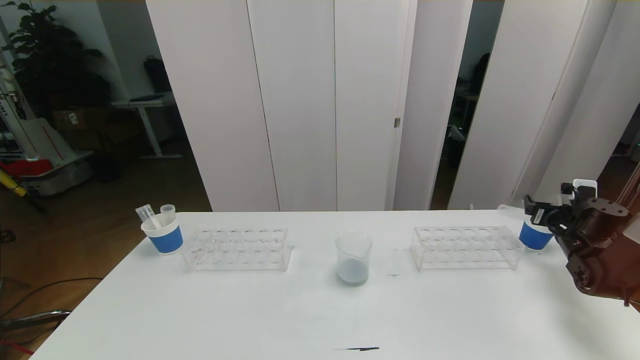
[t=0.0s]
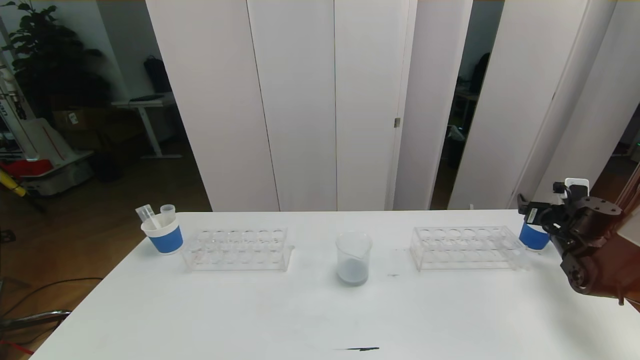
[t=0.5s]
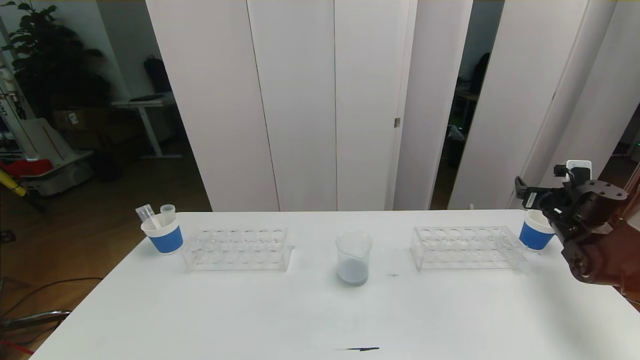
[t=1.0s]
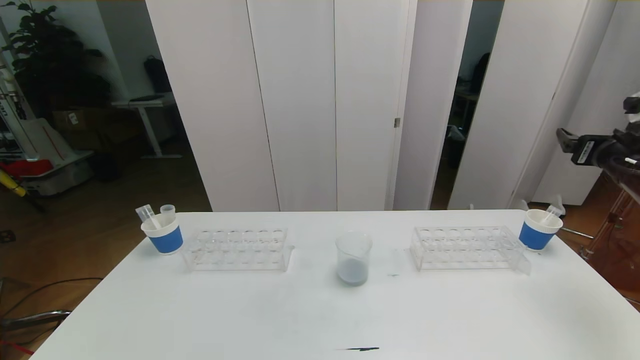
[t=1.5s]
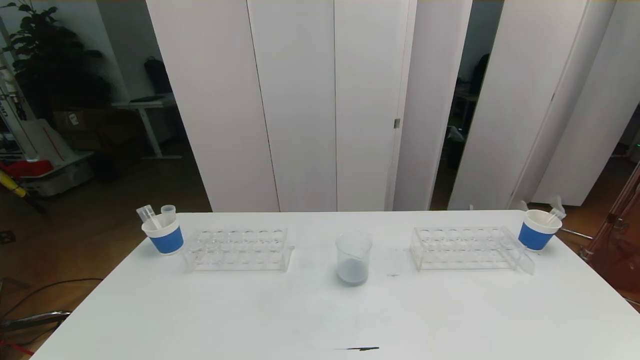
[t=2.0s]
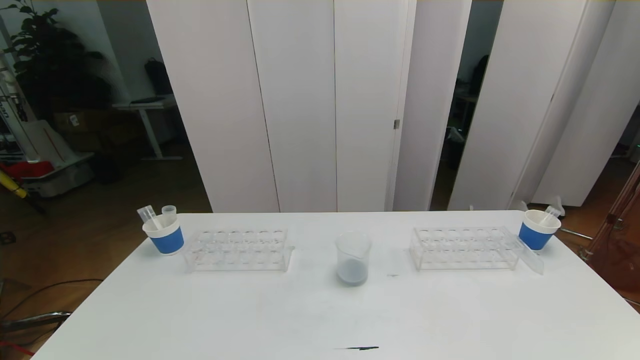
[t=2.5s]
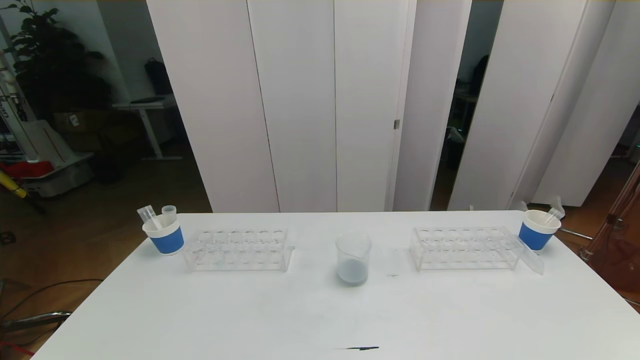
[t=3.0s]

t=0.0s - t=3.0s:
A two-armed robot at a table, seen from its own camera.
Task of the whole recording: pick up the test tube with red pigment the test tube with blue pigment and the test tube with white pigment by grippers and pour them into the beaker.
t=0.0s - t=1.5s: The right gripper shifts approximately 20 cm upward and backward.
t=1.5s - t=3.0s: The right gripper shifts roughly 40 cm backward and downward.

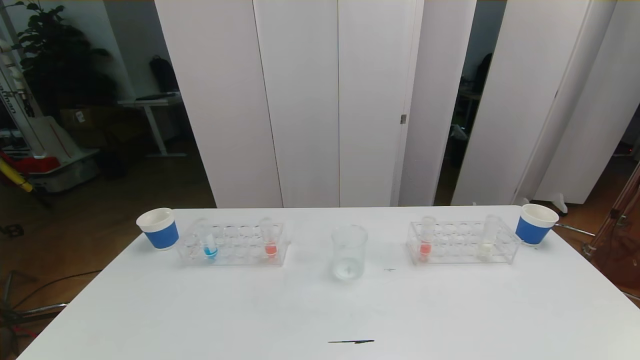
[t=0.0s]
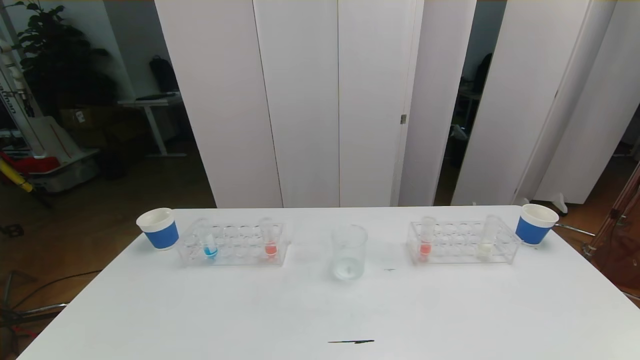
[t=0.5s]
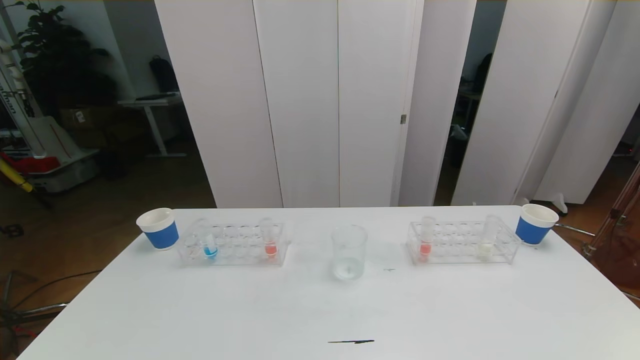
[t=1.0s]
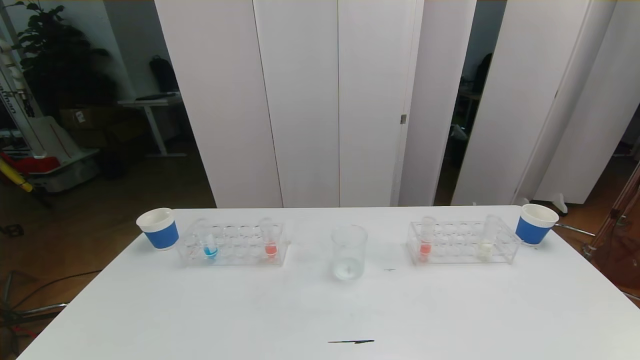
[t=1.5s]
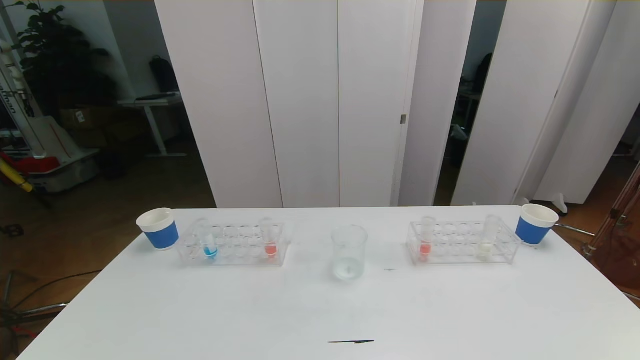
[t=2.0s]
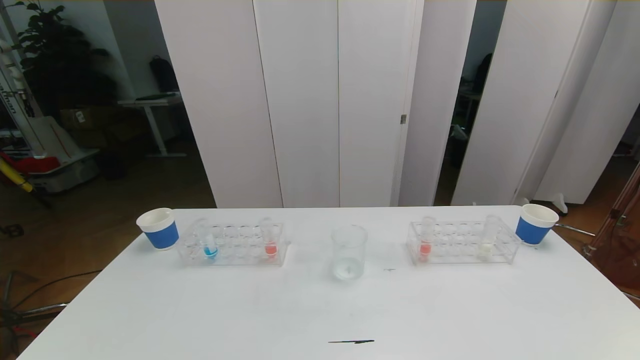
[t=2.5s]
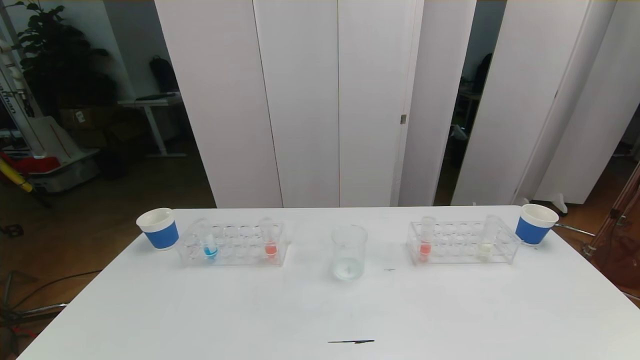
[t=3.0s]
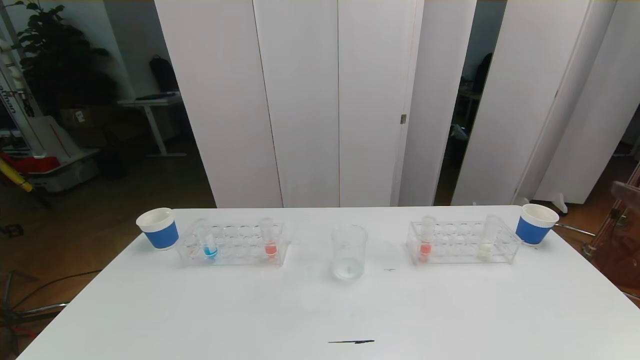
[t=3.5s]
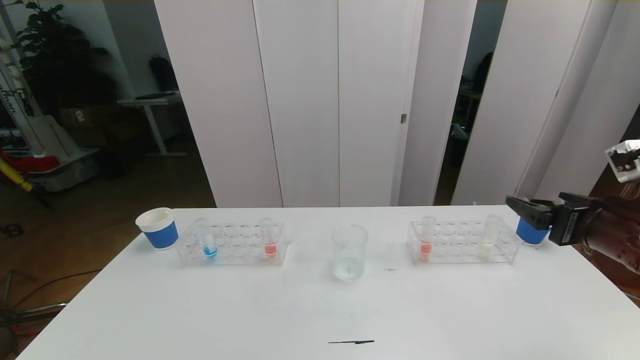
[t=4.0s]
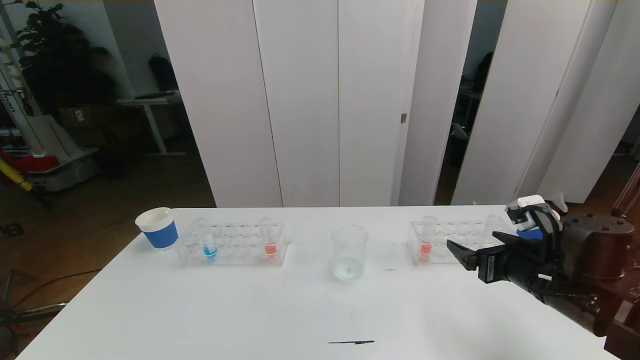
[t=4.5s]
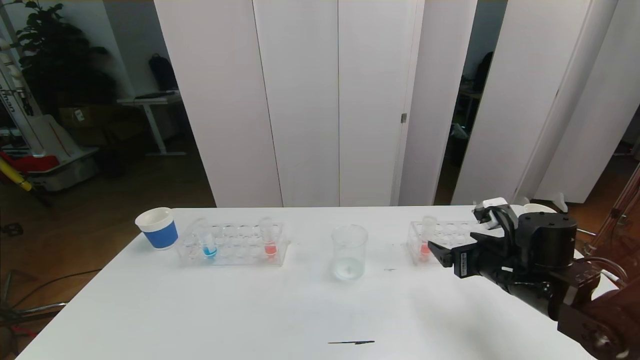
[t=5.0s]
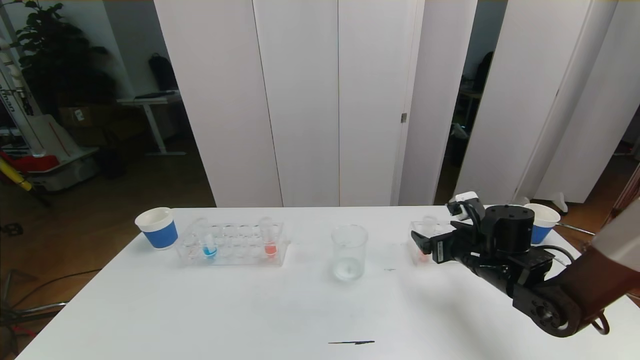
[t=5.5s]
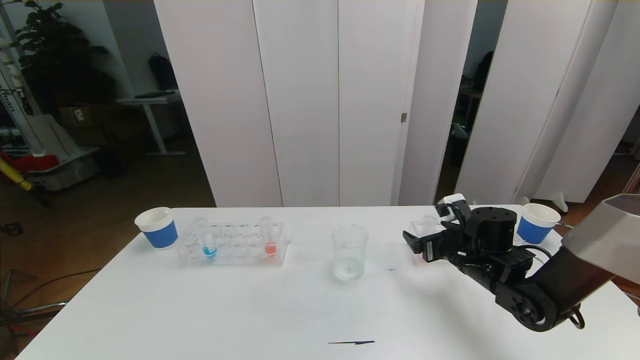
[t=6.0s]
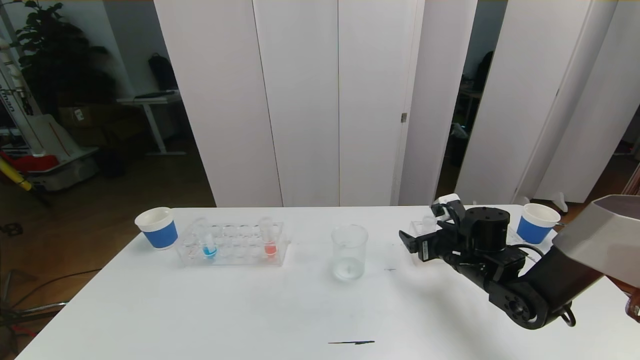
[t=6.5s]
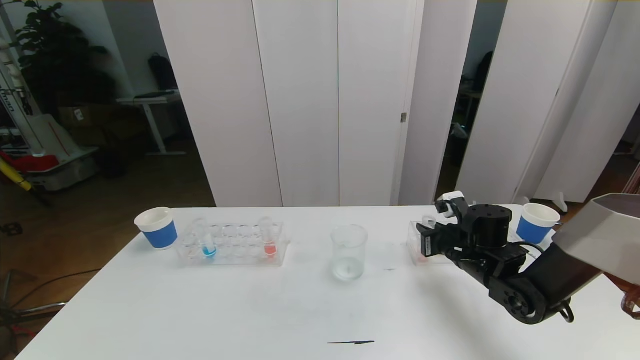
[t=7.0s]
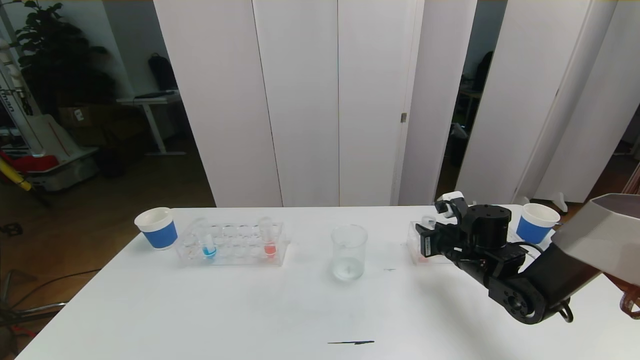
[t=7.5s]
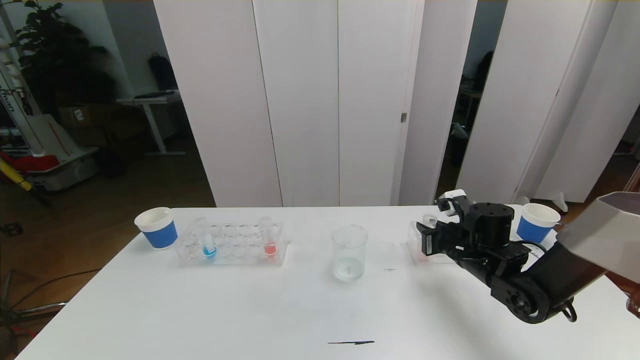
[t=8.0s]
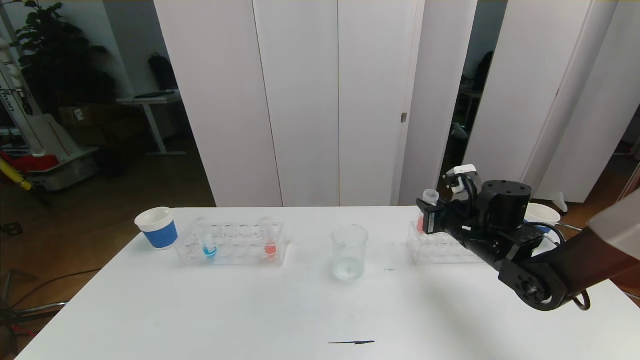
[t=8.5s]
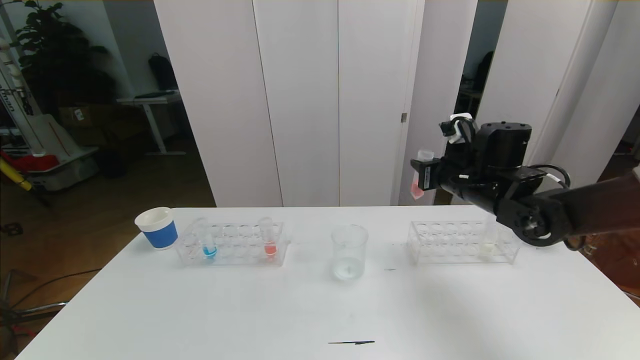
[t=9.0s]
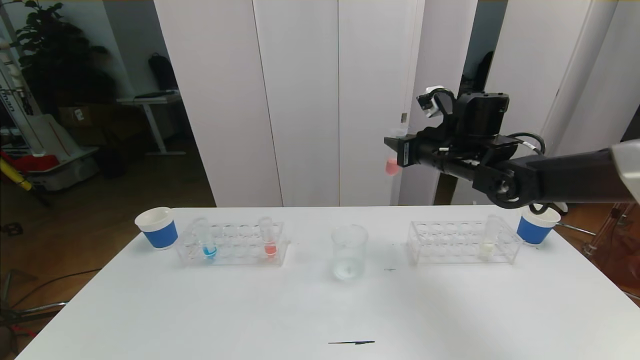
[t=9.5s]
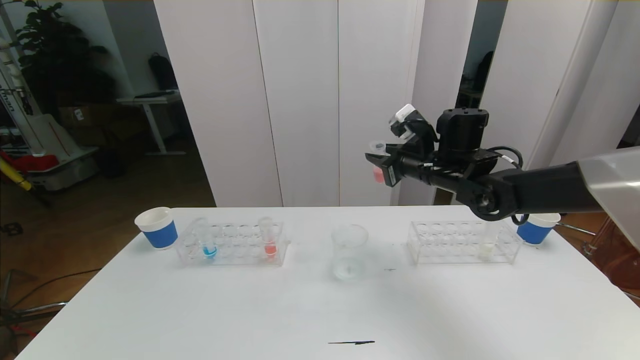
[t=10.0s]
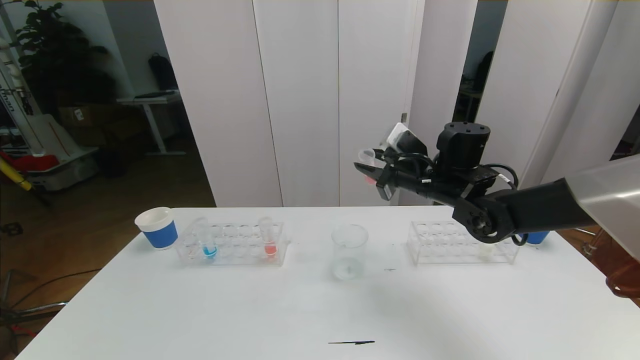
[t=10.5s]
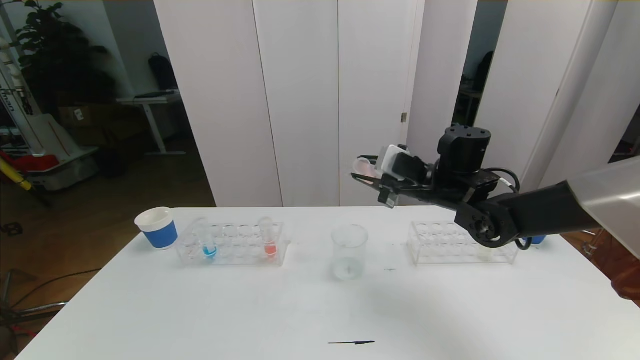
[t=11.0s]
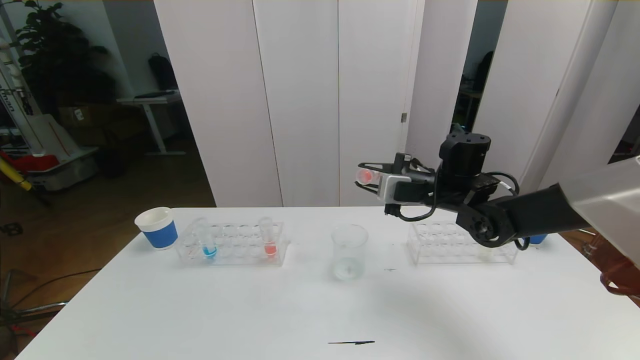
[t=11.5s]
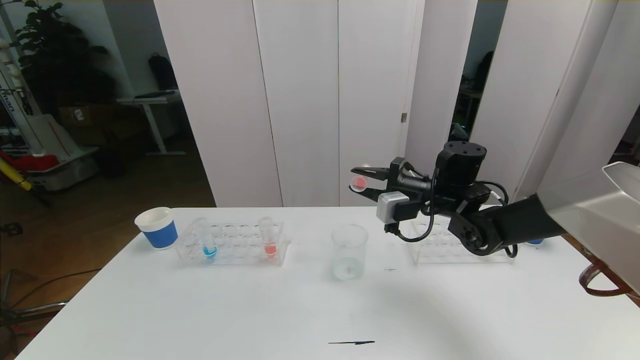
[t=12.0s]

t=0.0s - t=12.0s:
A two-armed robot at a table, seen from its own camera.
Task of the whole recording: pick up the test tube with red pigment the test tube with blue pigment and the test tube with white pigment by grippers and pour them into the beaker.
t=0.0s - t=2.0s: The two grippers keep their place.
t=2.0s - t=4.0s: The right gripper shifts about 30 cm forward and upward.
t=4.0s - t=6.0s: The right gripper travels downward, forward and to the left by about 20 cm.
t=6.0s - t=8.0s: The right gripper closes its fingers.
t=8.0s - t=10.0s: The right gripper is displaced upward, forward and to the left by roughly 15 cm.

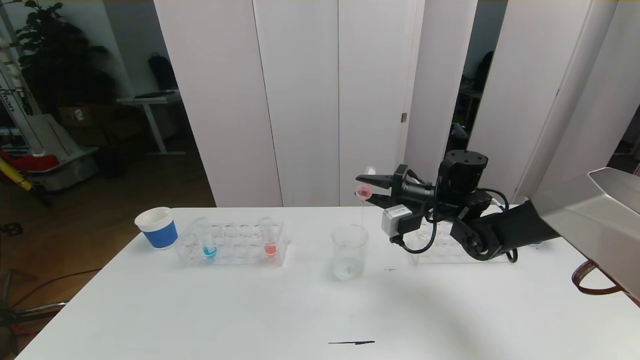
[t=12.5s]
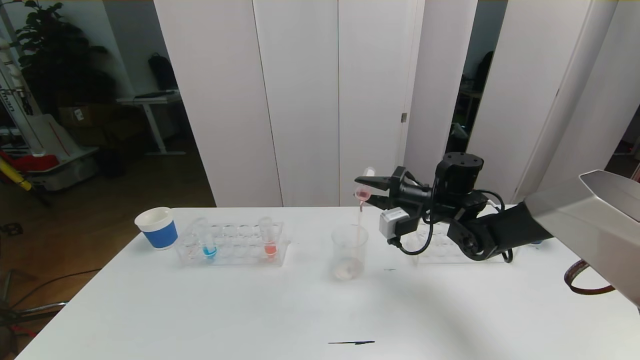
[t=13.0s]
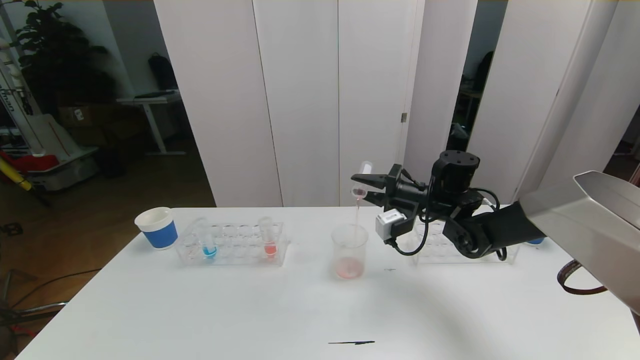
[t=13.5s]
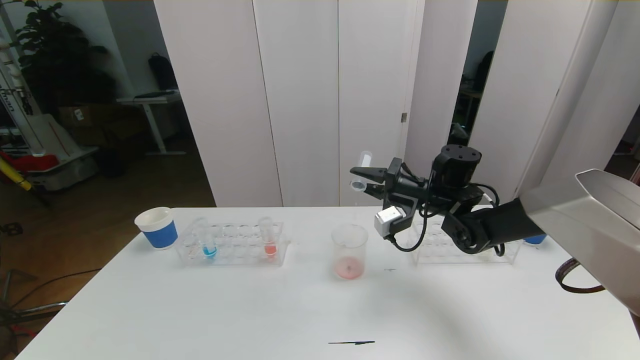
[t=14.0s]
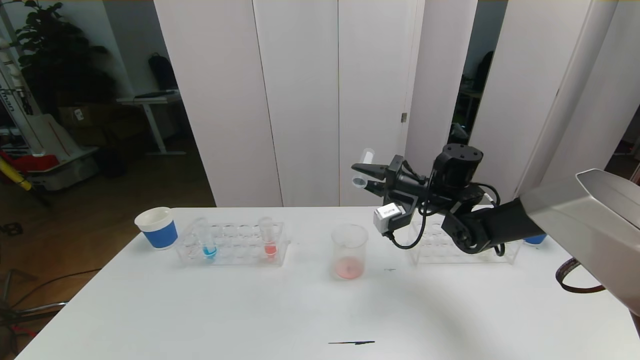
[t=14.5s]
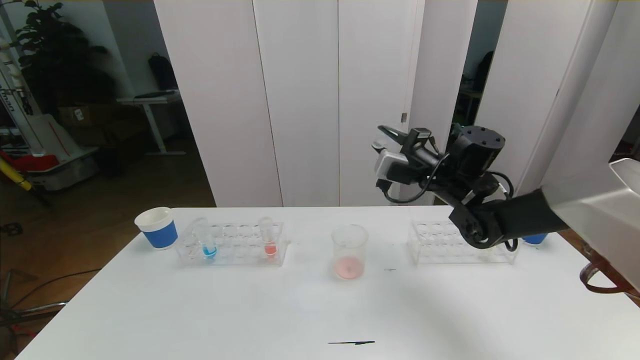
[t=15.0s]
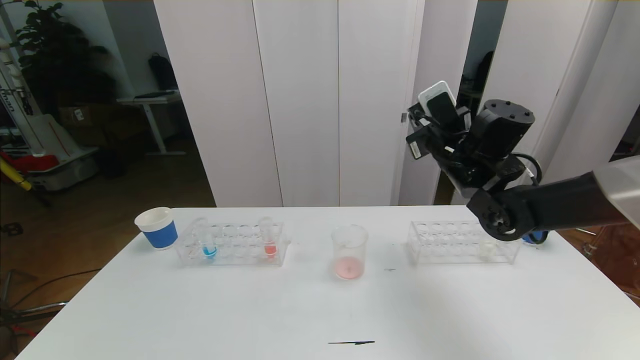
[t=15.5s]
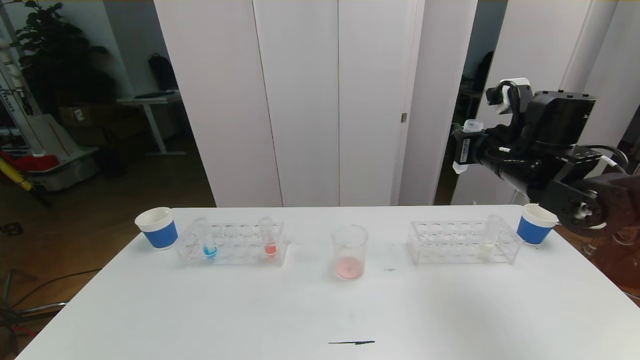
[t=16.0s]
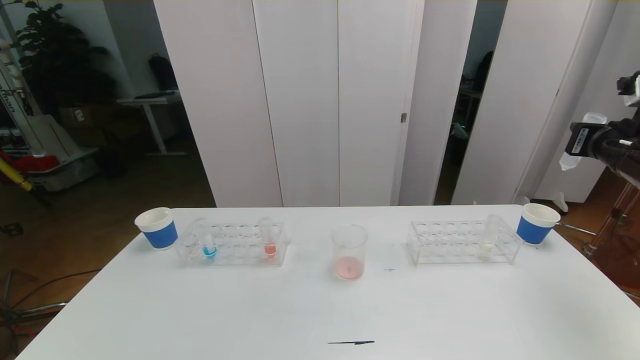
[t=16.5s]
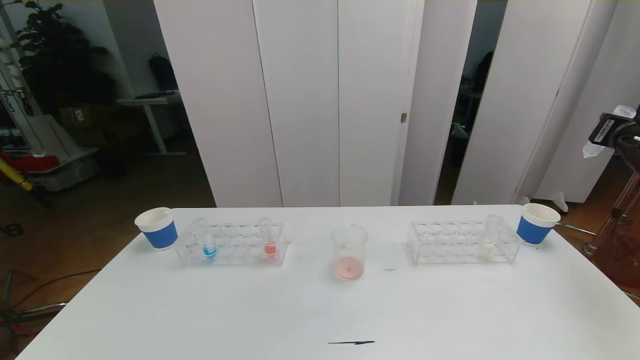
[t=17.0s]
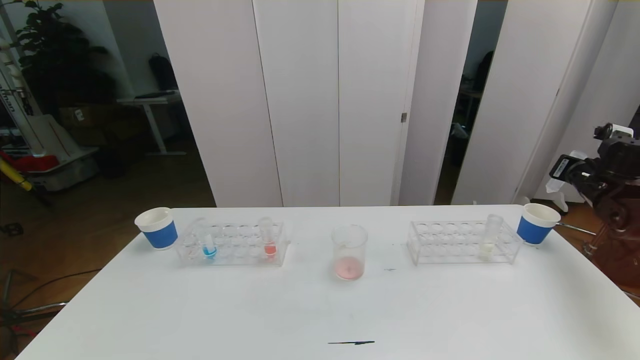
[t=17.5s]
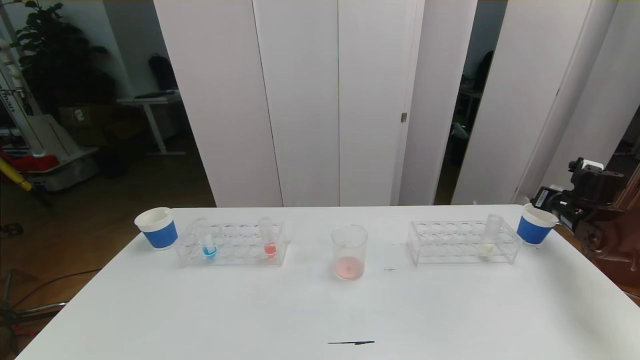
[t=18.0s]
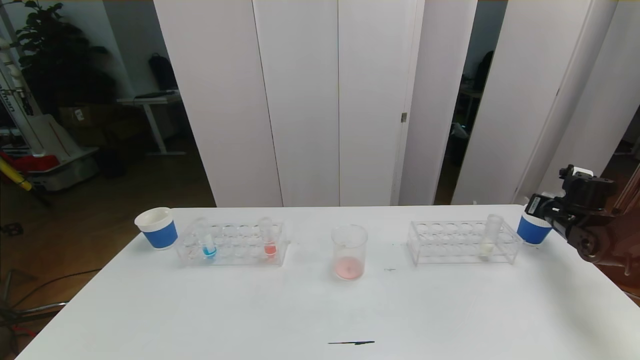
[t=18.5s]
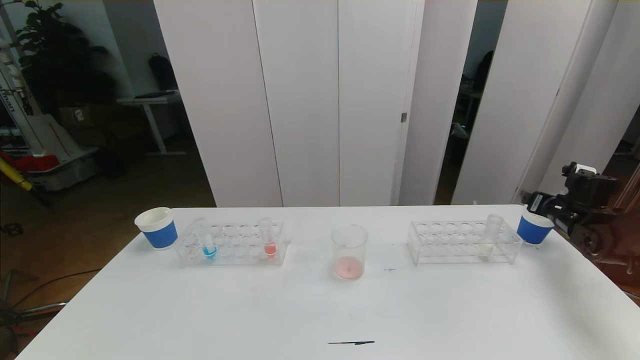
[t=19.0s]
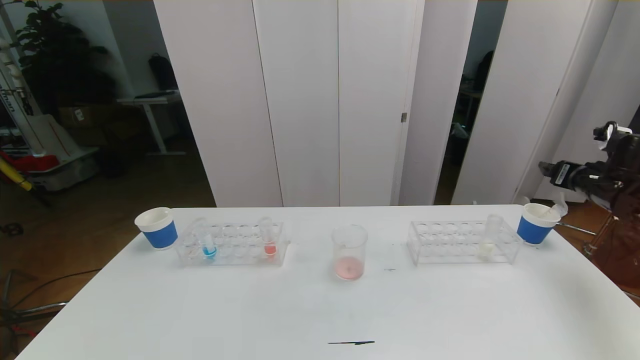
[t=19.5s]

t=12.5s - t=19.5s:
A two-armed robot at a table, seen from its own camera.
Task of the whole recording: pick up the test tube with red pigment the test tube with blue pigment and the test tube with white pigment by grippers and pour them into the beaker.
t=12.5s - t=14.5s: There are only small adjustments of the grippers.
t=14.5s - t=16.0s: The right gripper goes approximately 15 cm to the right, upward and backward.
t=16.0s - t=17.5s: The right gripper shifts approximately 20 cm to the right and downward.
t=17.5s - t=19.5s: The right gripper travels downward and back again, roughly 10 cm each way, and opens.
